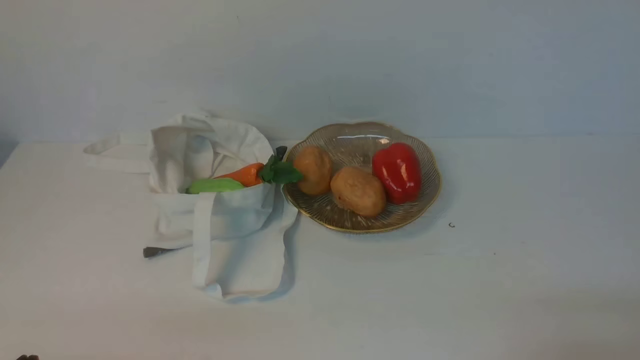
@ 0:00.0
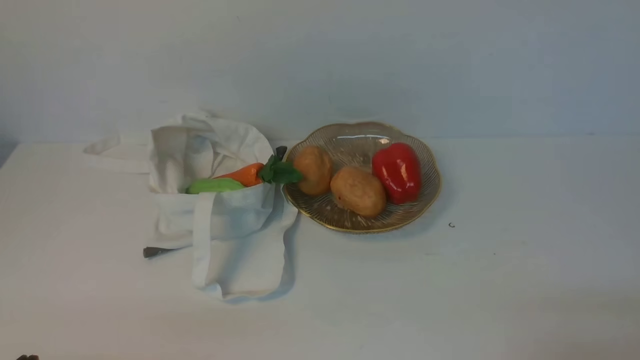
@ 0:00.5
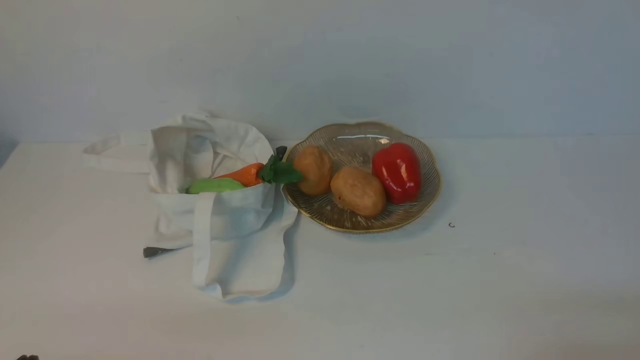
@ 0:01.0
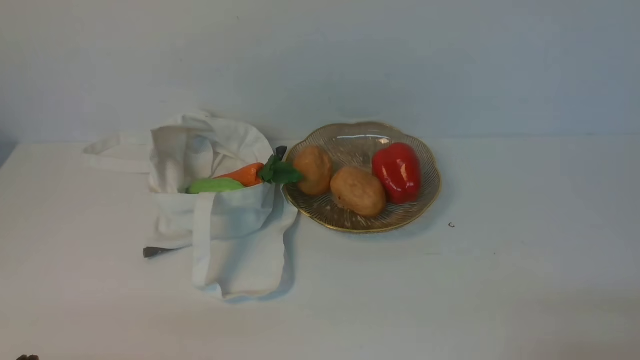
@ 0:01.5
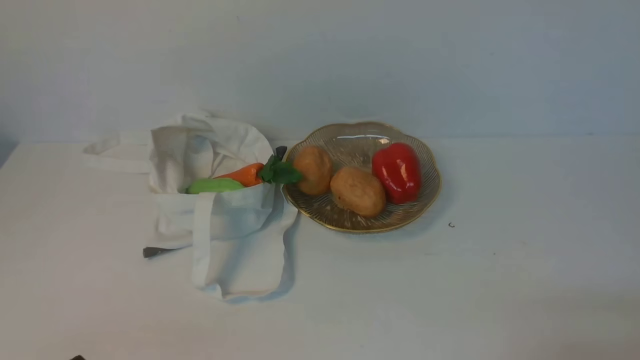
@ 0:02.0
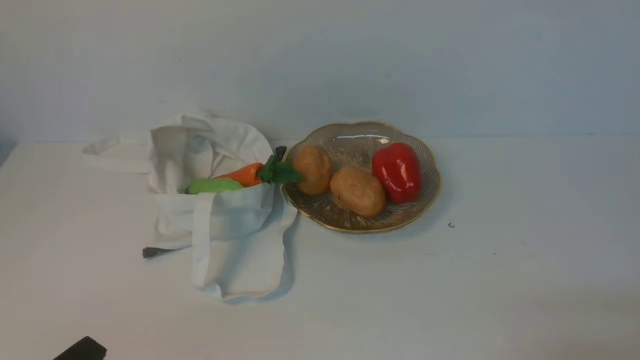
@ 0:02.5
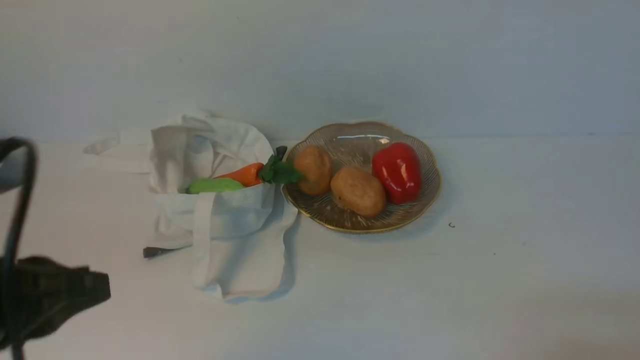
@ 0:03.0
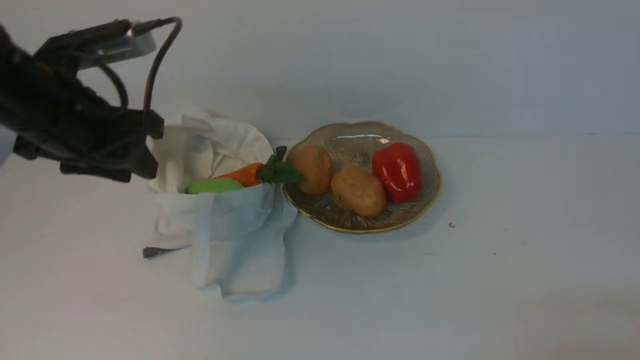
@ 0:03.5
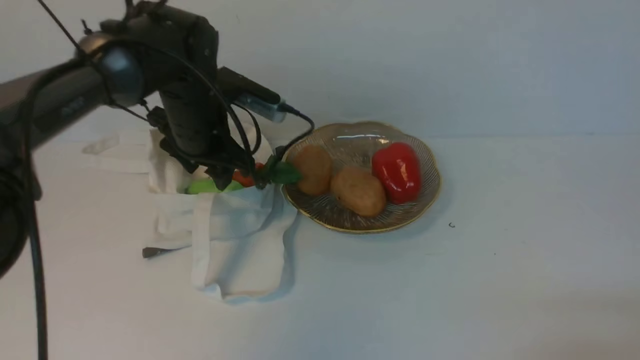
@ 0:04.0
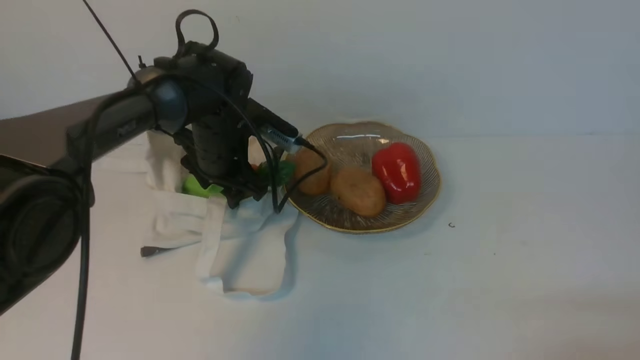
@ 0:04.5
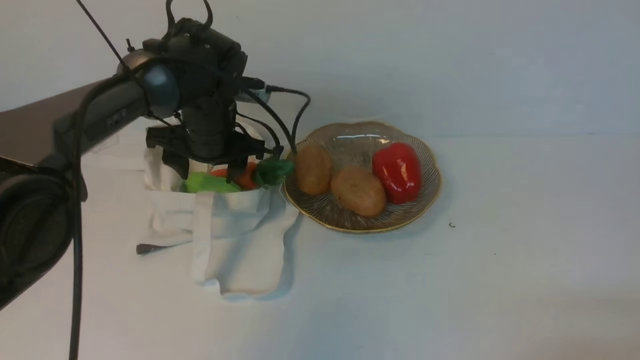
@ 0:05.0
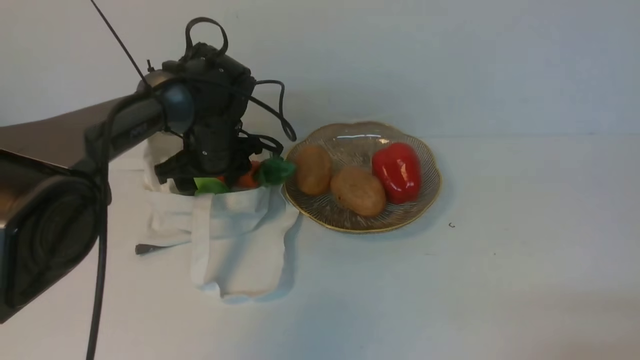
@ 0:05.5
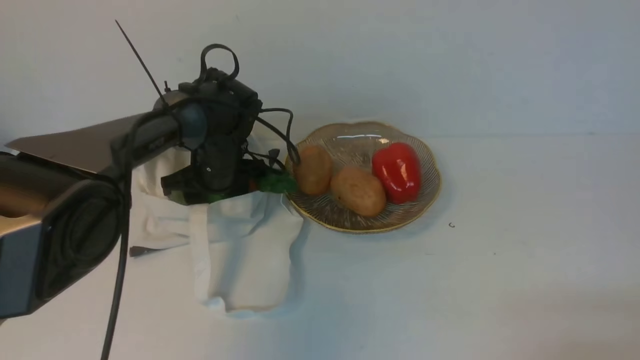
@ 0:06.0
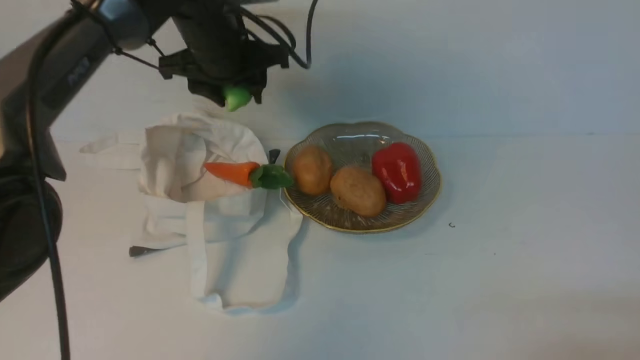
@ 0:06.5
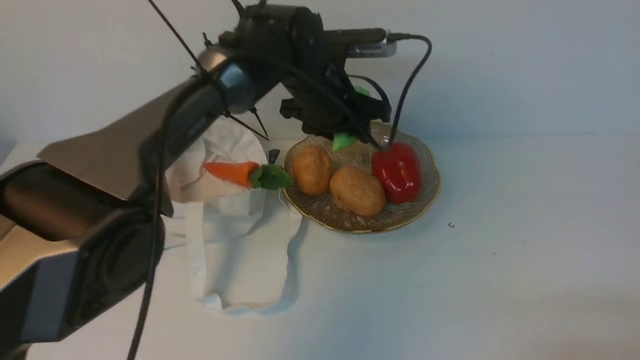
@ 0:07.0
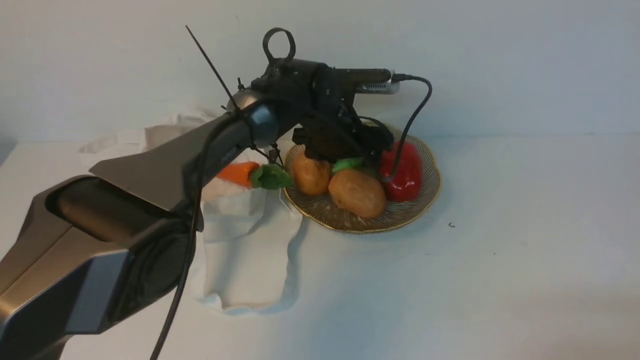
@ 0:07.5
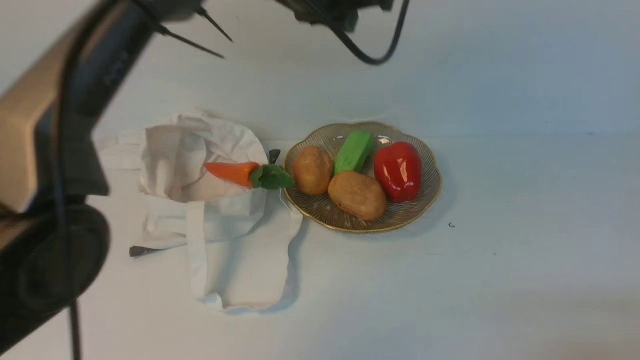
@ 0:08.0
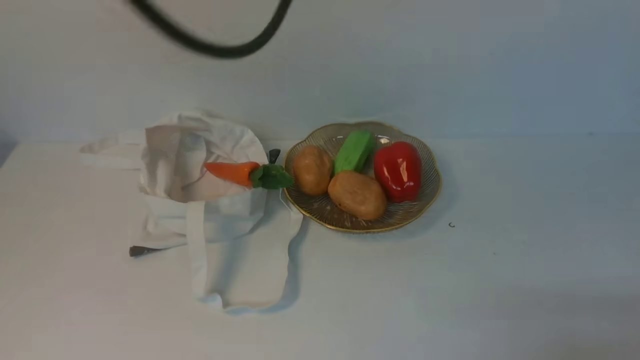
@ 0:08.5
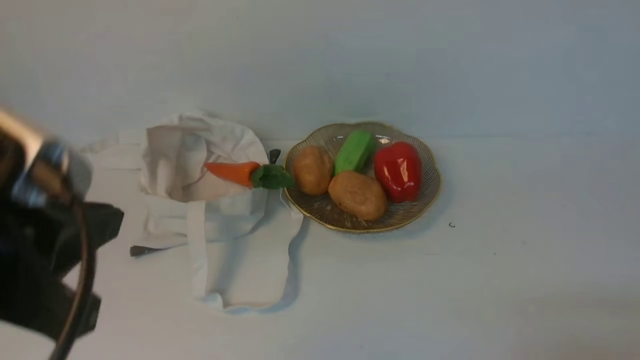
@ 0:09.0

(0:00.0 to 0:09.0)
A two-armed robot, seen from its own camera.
Task of the whole recording: take vegetables from cloth bag on white table place on plate.
Step, 0:00.0 - 0:05.5: Grasp the bitter melon with left gripper.
Step, 0:06.5 - 0:07.5: Place the bitter melon on the plate with left gripper.
0:02.0 - 0:04.5: The left gripper moves forward, about 40 cm, and opens.
0:04.5 - 0:07.0: The left gripper travels to the right by roughly 10 cm, and reaches about 10 cm upward, then returns.
0:07.0 - 0:09.0: The left gripper shifts approximately 40 cm backward and to the left, and closes.

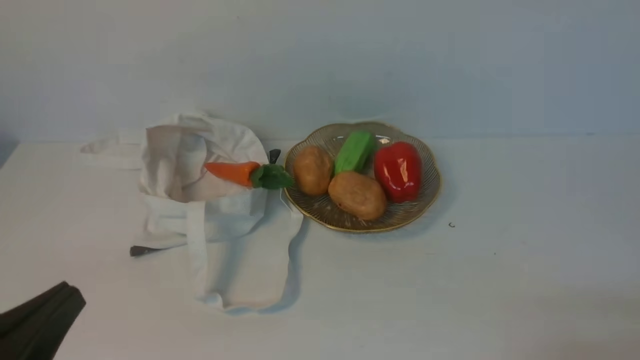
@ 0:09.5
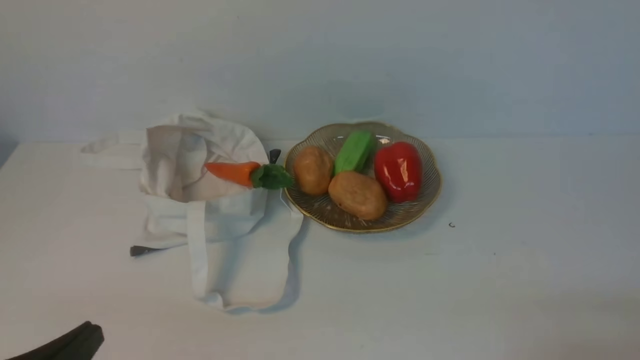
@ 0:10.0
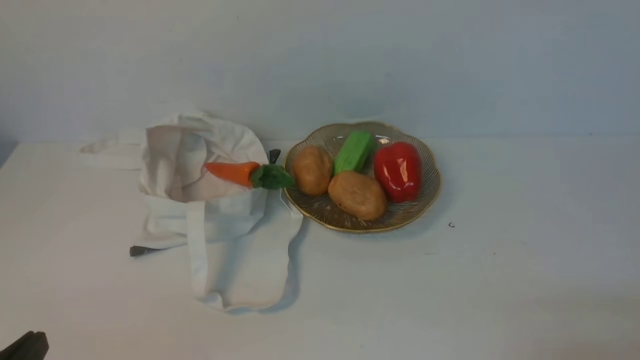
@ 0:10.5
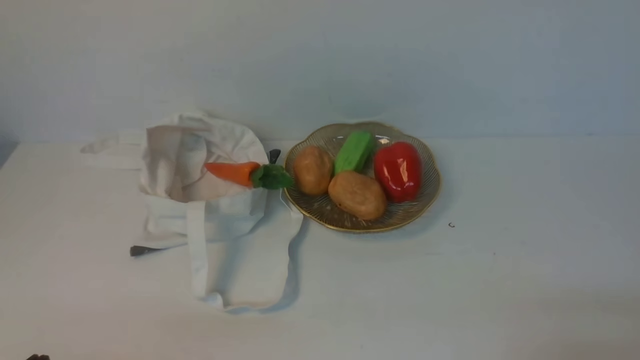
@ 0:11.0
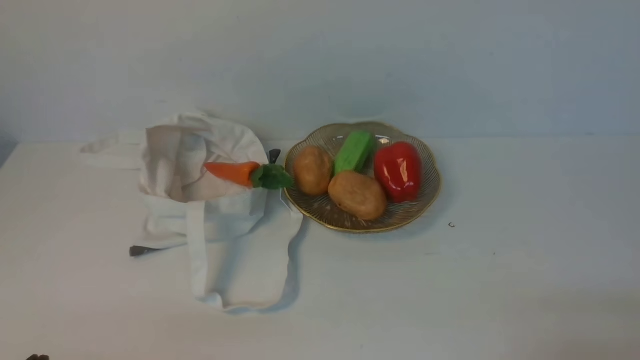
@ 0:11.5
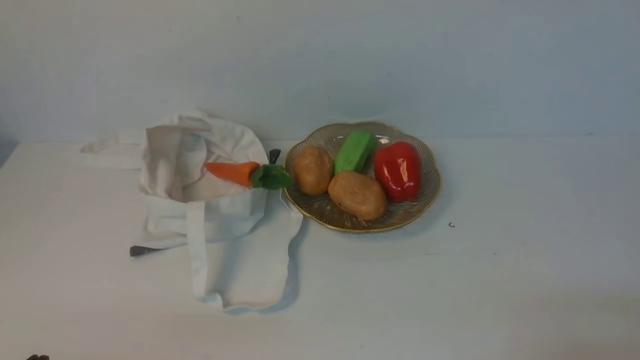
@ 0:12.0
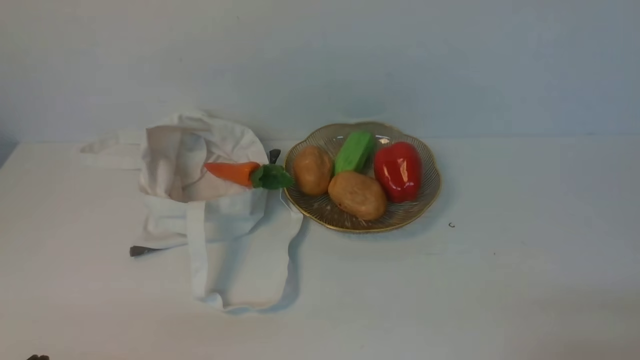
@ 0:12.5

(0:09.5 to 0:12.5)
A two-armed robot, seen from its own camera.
Task of the whole recording: take vegetables from cloth bag on white table place on plate.
0:09.5 - 0:11.0: The left gripper travels downward by roughly 10 cm.
0:11.0 - 0:12.5: Neither gripper changes place.

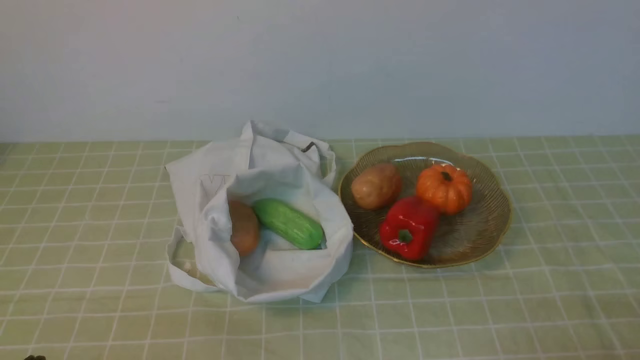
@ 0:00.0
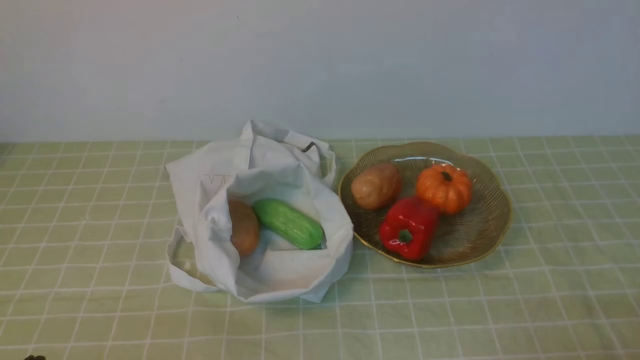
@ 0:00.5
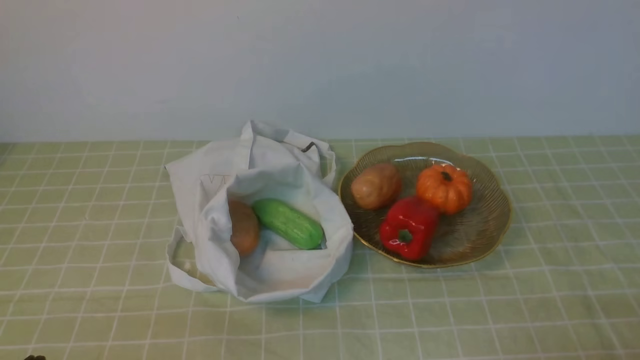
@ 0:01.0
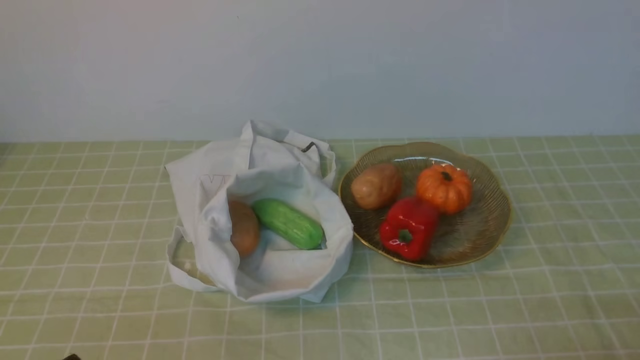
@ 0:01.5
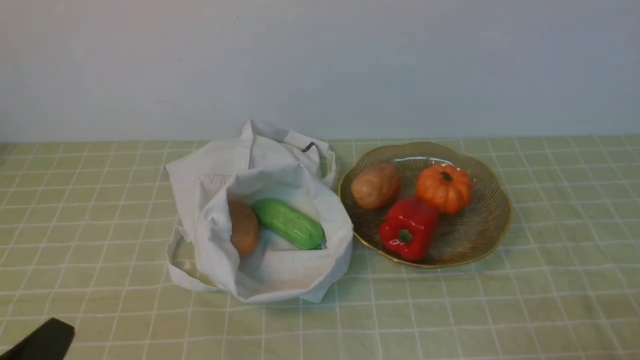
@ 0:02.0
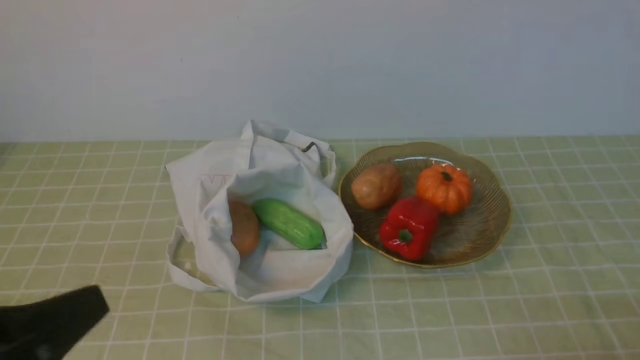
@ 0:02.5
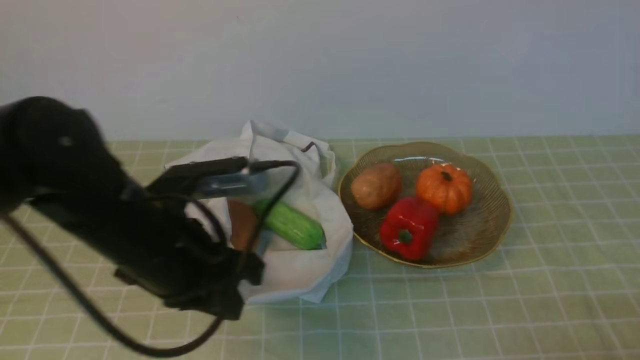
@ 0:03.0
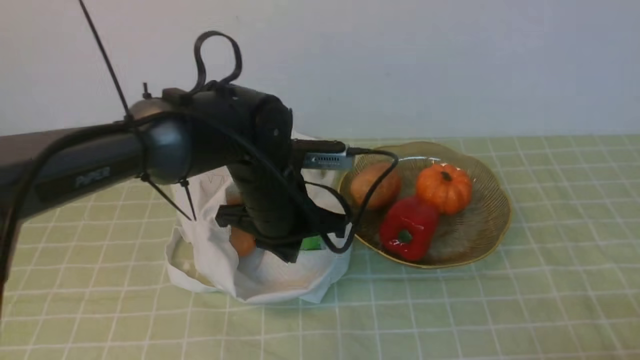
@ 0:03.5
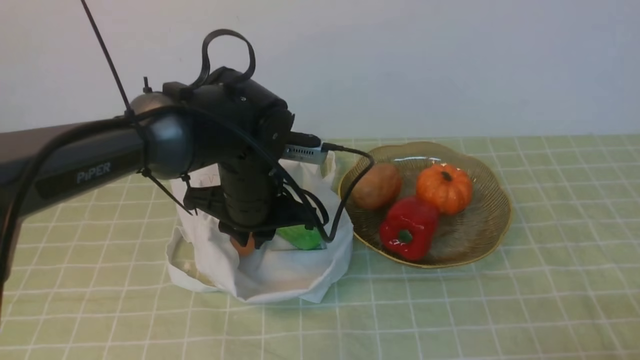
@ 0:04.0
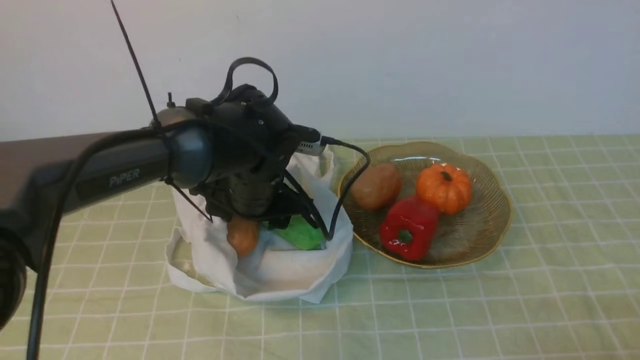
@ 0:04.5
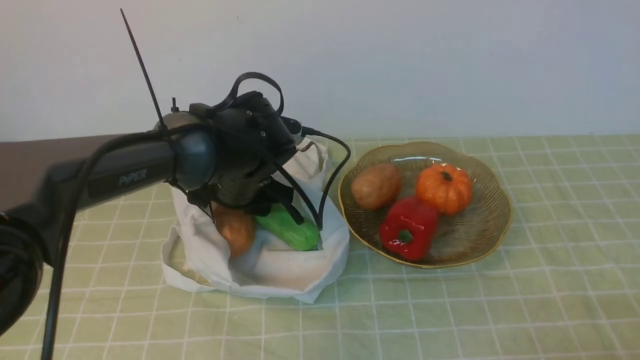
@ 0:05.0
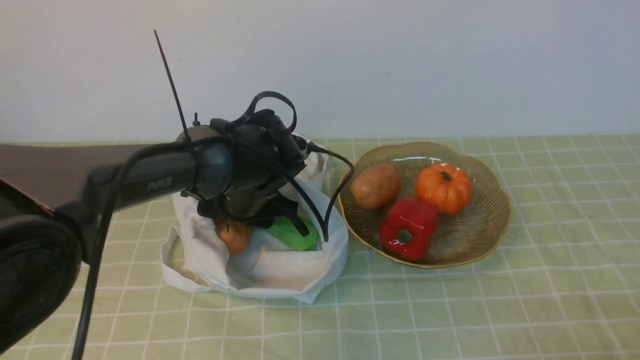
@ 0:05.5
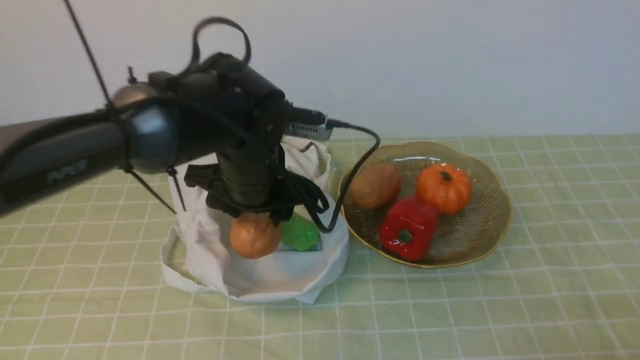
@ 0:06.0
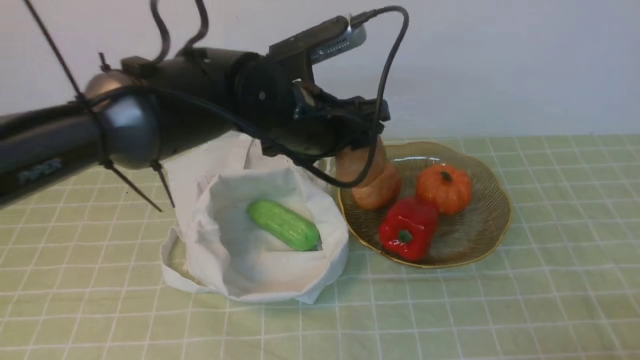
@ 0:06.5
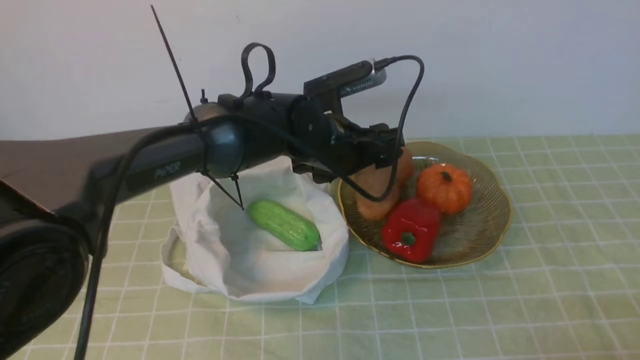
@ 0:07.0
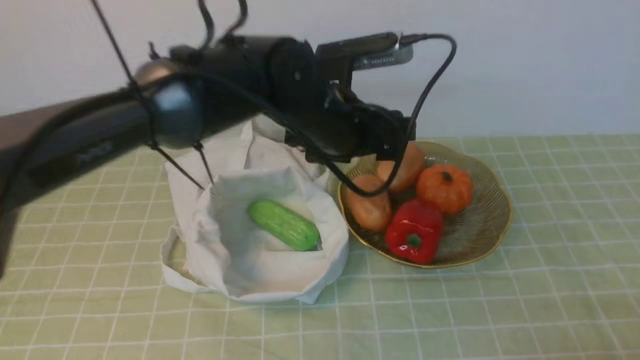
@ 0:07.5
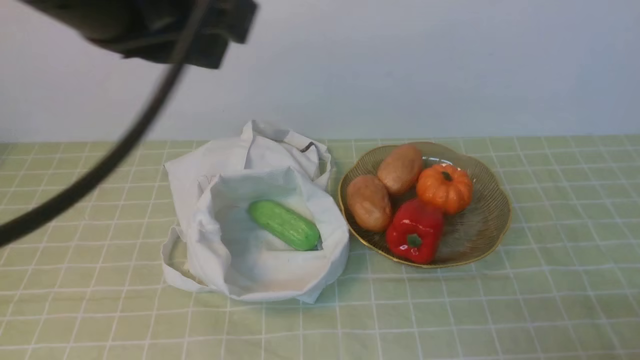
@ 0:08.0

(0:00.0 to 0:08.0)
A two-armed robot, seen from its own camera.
Task of the whole recording: take vegetables from bag on green coffee tablecloth place on plate.
Step, 0:00.0 - 0:05.5: Grasp the potato with left gripper.
Step, 0:06.0 - 0:07.0: Place the potato on the plate with left gripper.
0:02.0 - 0:04.0: The left gripper goes approximately 35 cm forward and to the right.
0:04.0 - 0:06.0: The left gripper opens up.
0:06.0 - 0:08.0: The left gripper swings up and down, about 25 cm each way, with 2 reversals, and closes.
